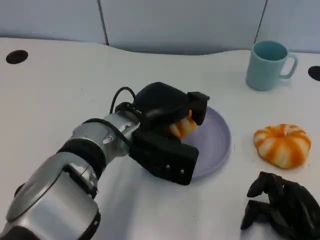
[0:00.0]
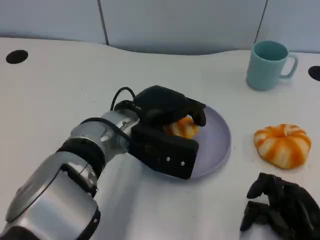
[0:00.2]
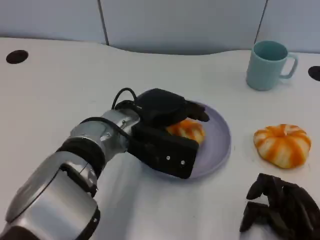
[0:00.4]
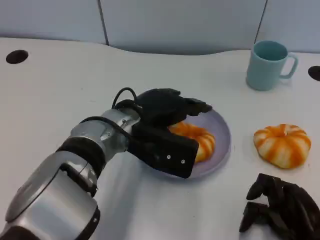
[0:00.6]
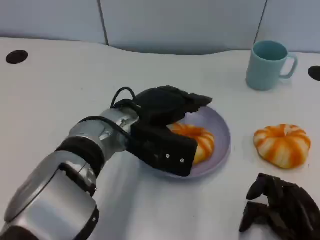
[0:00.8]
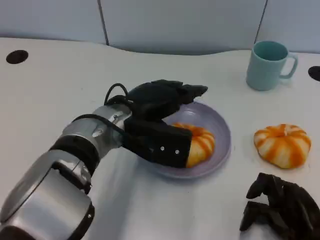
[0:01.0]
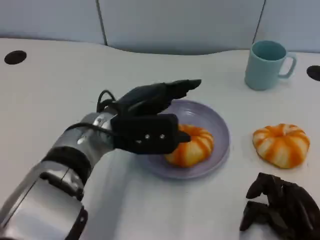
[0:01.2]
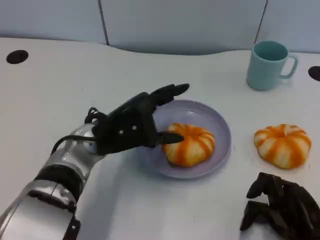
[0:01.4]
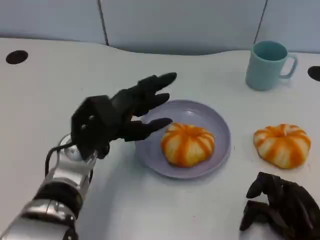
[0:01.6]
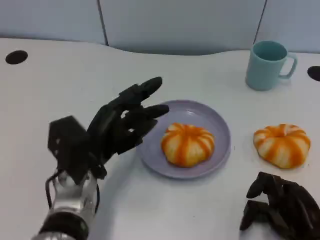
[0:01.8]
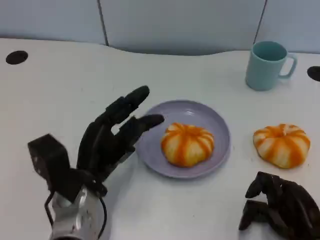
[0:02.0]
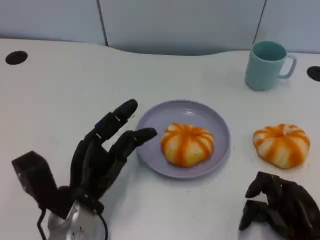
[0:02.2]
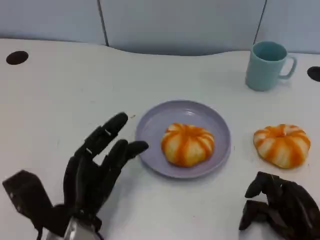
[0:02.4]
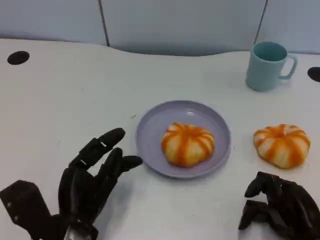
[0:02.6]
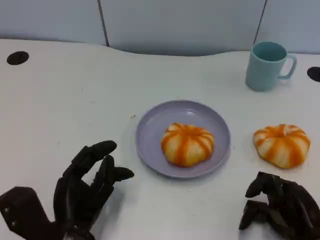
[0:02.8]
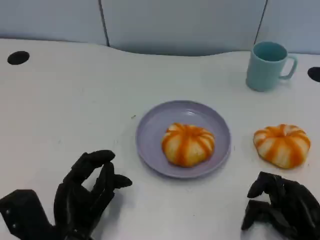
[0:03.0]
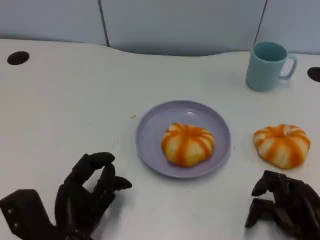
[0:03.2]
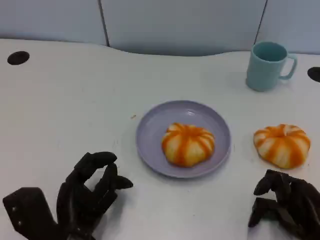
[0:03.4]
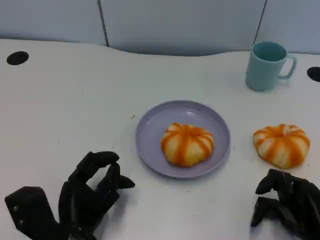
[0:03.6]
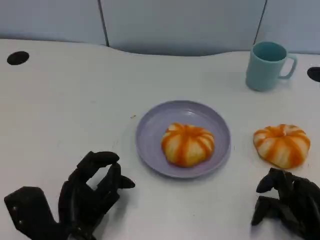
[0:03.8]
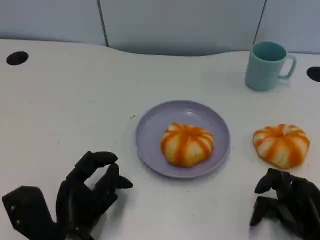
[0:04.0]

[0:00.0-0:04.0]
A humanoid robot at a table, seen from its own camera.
Task of the whole recording: Grasp the bread from the table and place it into the plate.
0:00.0 to 0:01.4: The left hand is displaced to the left by approximately 5 cm.
0:01.4 to 0:02.6: The left hand travels backward and downward by about 15 cm.
0:02.6 to 0:04.0: The hands move only a little.

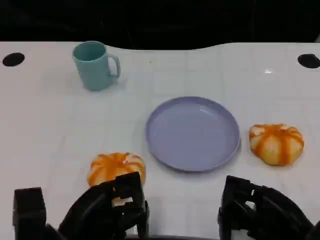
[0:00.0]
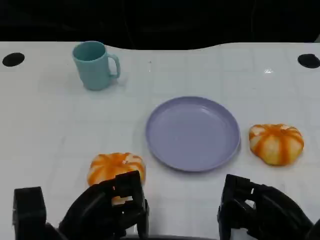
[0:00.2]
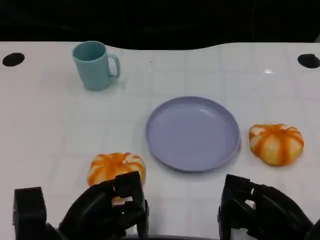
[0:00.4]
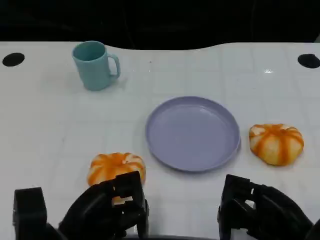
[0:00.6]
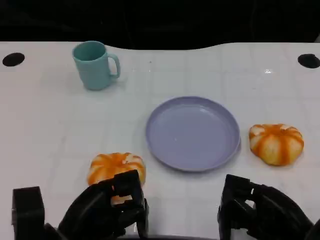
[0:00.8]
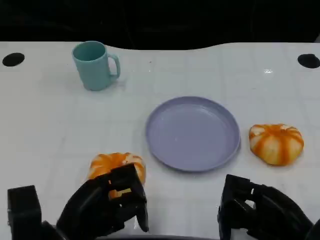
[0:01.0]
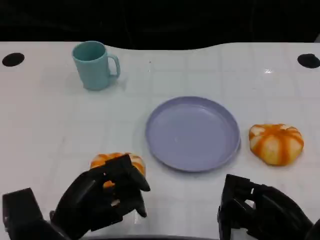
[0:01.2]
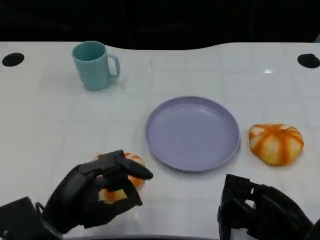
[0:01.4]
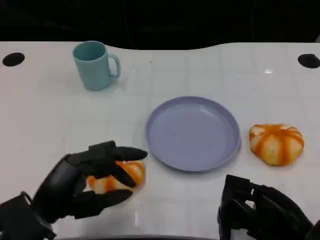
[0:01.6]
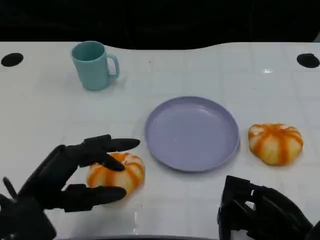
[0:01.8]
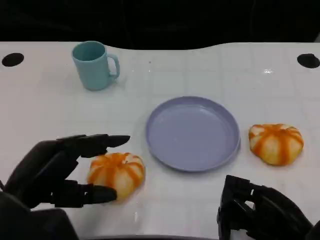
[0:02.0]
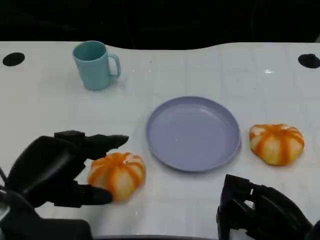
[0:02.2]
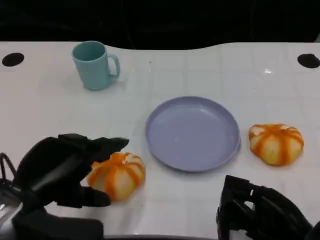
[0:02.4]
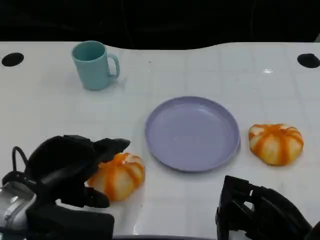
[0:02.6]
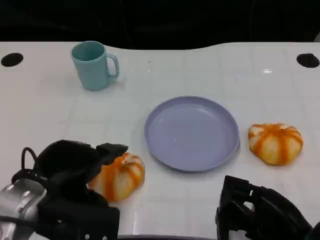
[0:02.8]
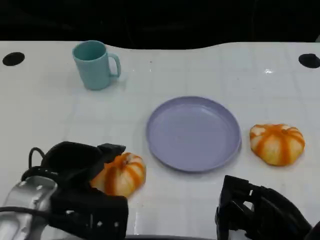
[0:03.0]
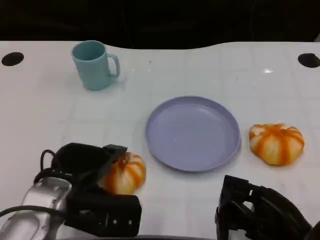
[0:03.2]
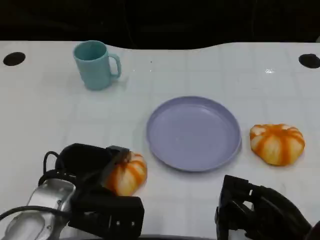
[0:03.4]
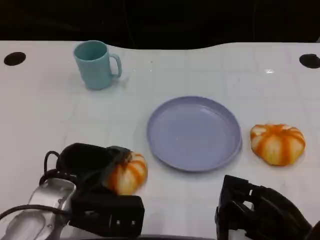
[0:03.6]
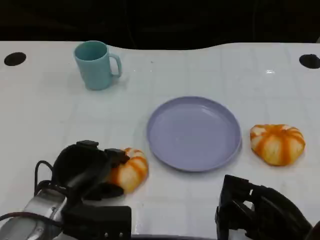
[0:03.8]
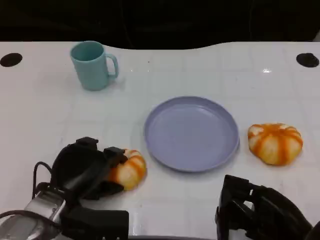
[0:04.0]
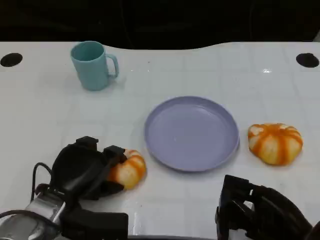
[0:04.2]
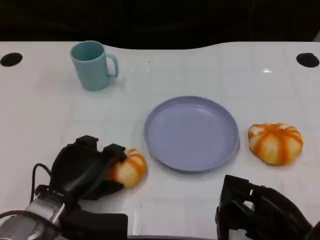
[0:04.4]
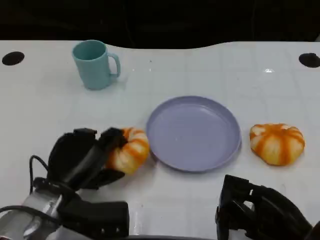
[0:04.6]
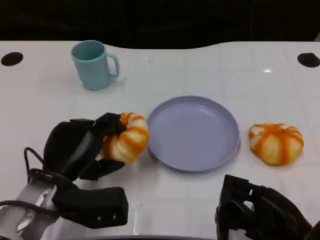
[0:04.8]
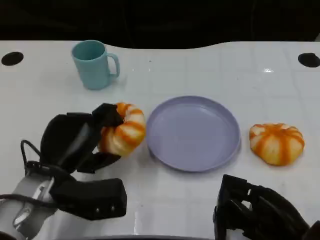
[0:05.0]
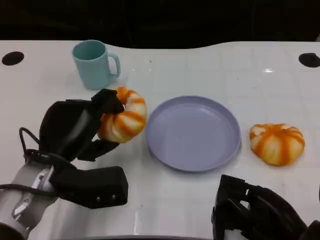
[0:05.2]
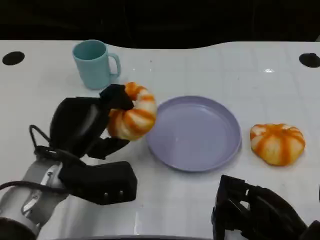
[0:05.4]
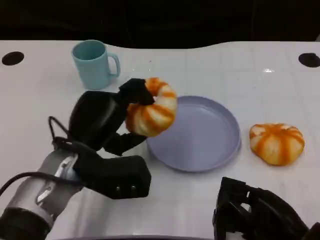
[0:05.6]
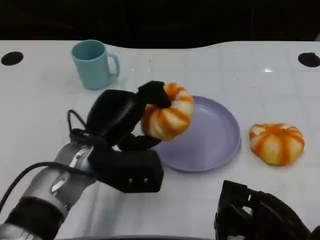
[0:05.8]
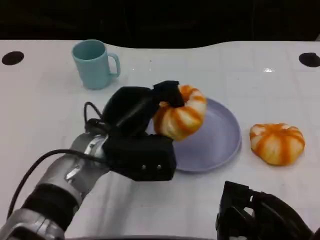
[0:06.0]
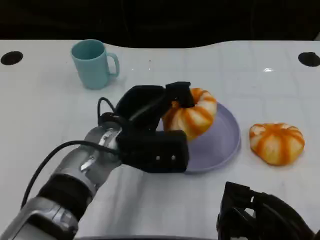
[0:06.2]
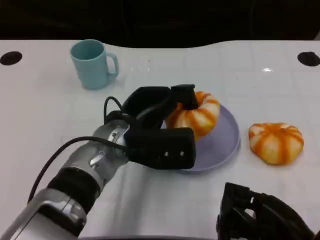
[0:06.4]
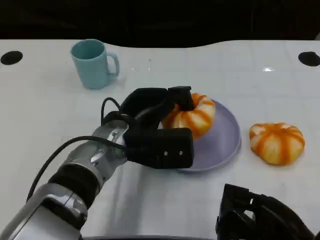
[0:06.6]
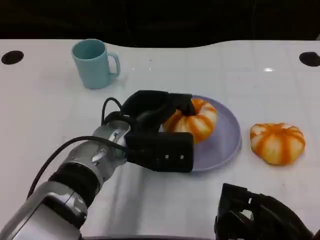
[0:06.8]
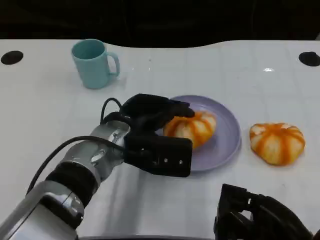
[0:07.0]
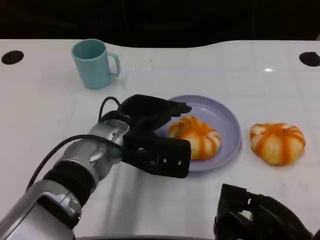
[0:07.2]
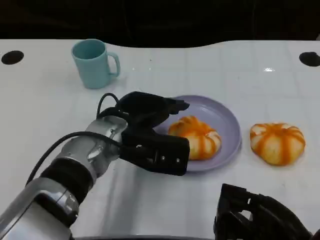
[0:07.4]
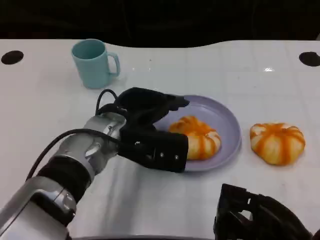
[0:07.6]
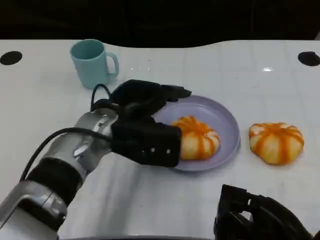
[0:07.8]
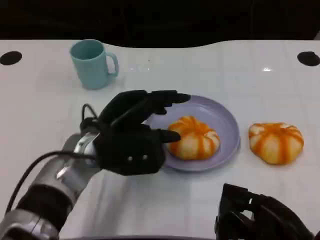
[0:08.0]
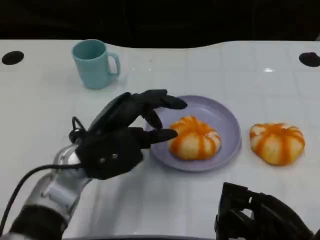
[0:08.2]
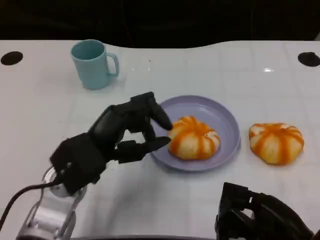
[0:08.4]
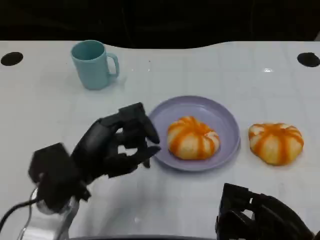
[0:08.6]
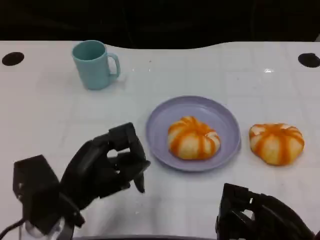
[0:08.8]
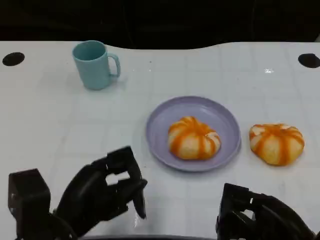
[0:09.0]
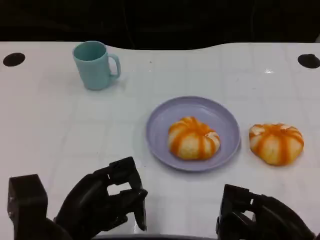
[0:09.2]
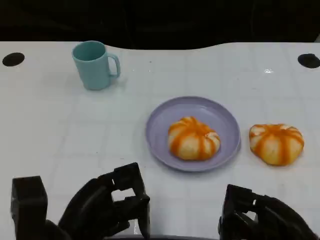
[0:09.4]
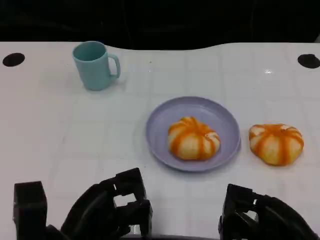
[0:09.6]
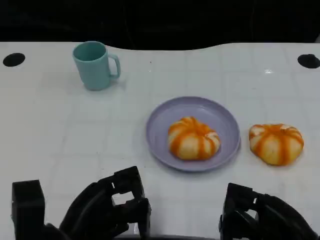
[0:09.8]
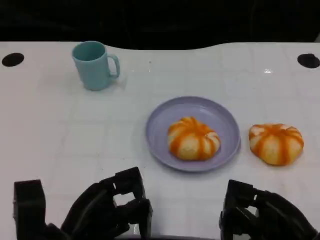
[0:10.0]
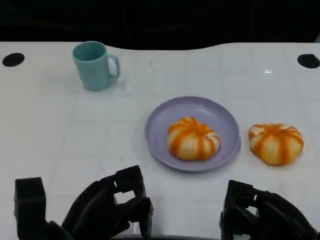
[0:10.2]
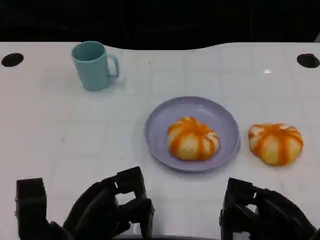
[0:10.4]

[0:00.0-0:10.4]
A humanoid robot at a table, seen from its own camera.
Task of the whole recording: Grasp the bread from the table and place it into the plate.
0:01.4 to 0:03.0: The left hand shifts by about 5 cm.
0:03.0 to 0:04.4: The left hand shifts some 5 cm downward.
0:04.4 to 0:06.0: The left hand heads upward, to the right and forward, covering about 15 cm.
0:07.4 to 0:09.0: The left hand is displaced backward and to the left by some 15 cm.
0:09.0 to 0:10.4: The hands move only a little.

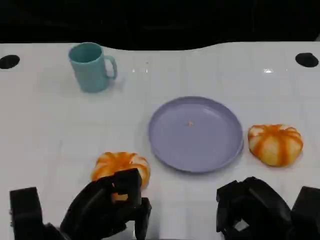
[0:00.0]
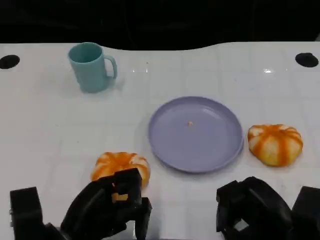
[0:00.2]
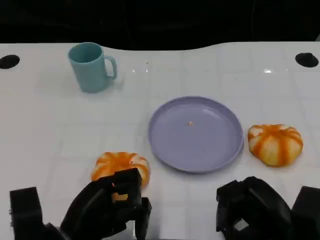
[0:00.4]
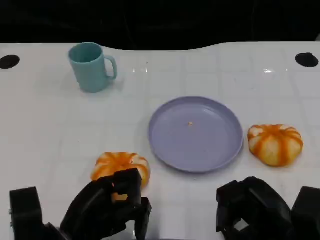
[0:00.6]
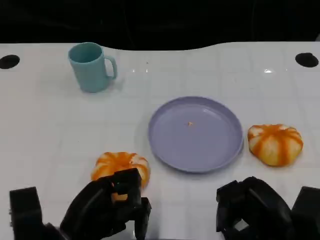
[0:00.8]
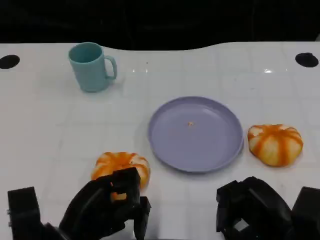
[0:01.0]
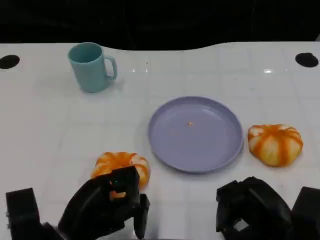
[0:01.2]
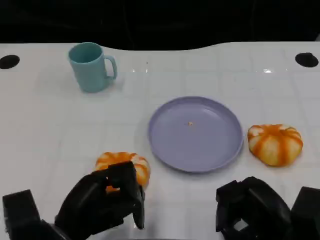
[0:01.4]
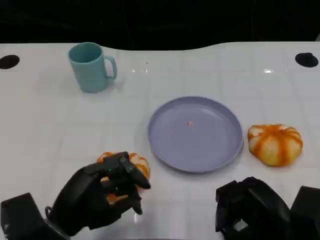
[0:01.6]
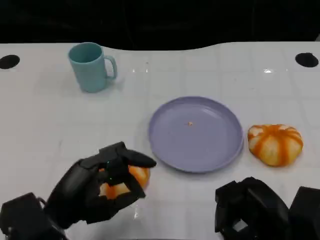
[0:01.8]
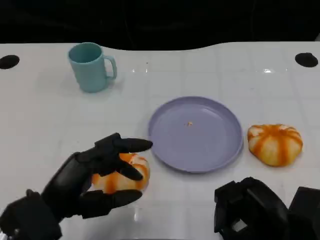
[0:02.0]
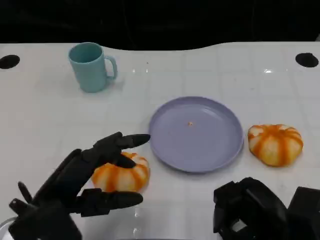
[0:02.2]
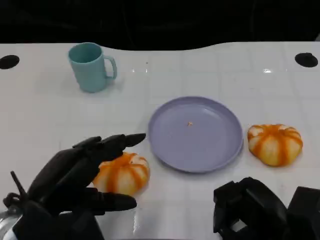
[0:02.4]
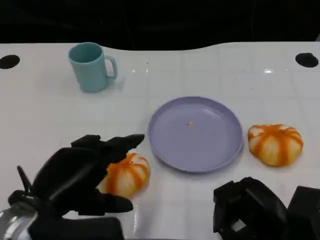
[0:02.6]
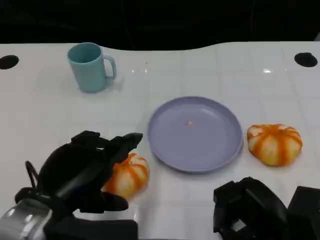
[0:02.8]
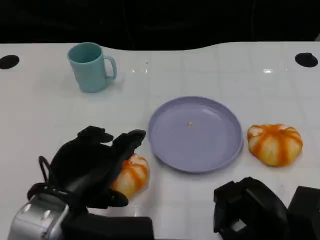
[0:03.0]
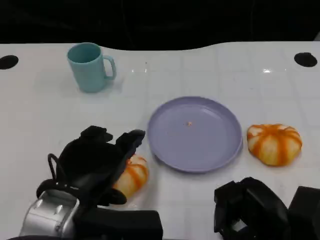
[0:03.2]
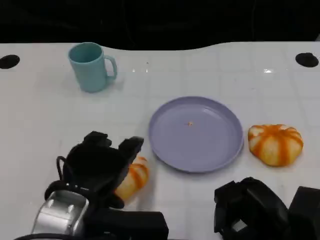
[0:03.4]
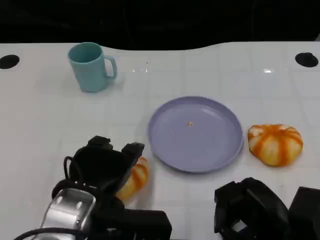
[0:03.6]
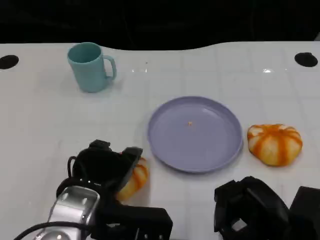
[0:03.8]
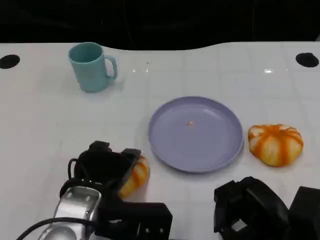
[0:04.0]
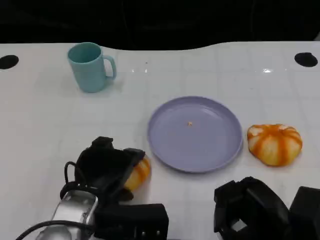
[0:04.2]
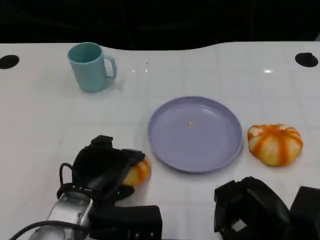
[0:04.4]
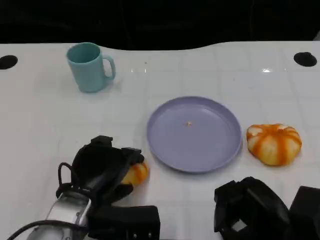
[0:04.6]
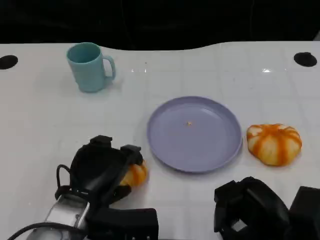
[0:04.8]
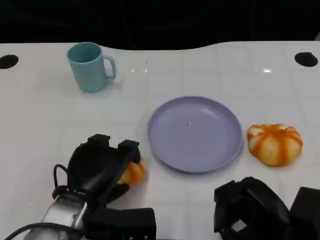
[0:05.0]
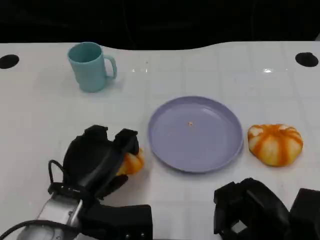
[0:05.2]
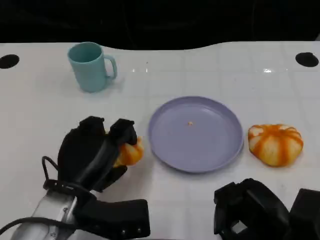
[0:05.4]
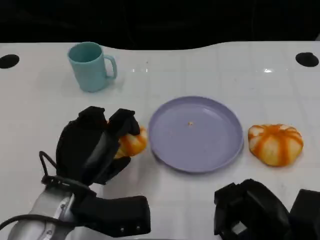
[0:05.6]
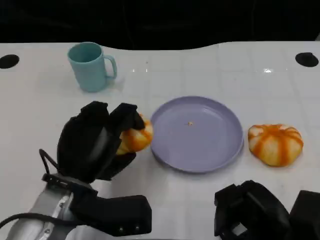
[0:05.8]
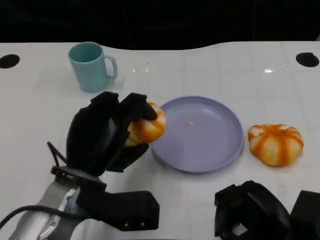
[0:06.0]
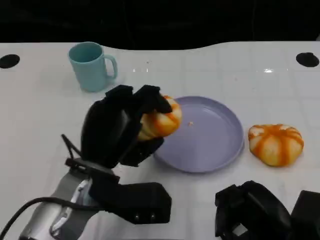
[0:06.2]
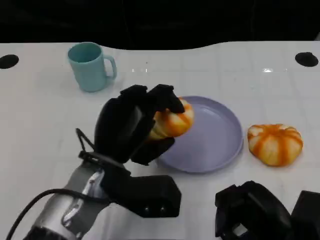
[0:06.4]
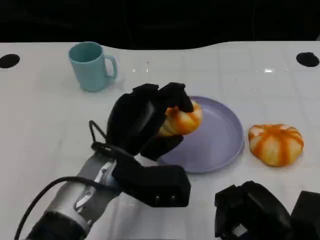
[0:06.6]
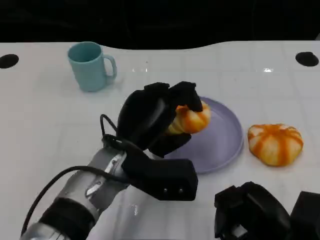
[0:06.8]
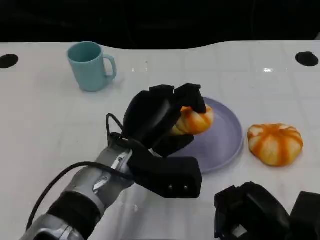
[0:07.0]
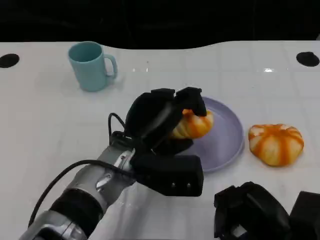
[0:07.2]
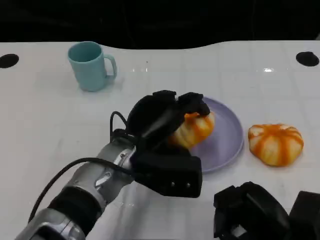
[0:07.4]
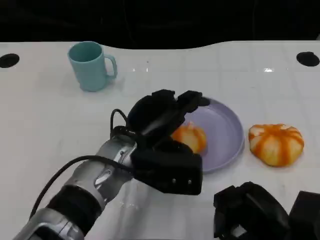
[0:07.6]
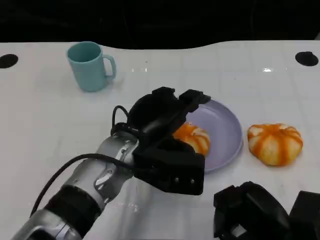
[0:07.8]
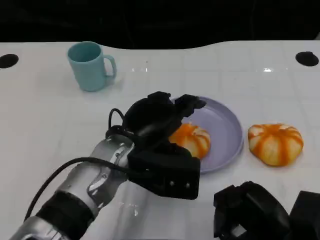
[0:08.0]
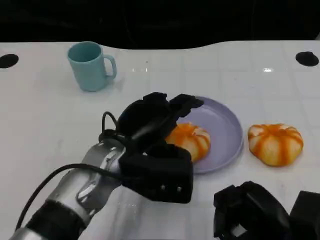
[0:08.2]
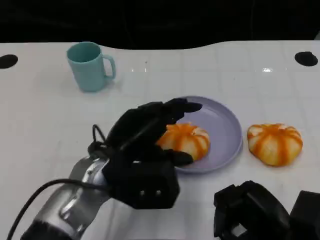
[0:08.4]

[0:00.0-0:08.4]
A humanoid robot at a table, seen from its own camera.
Task of the whole recording: Grasp the bread from the table and place it into the plate.
0:00.0 to 0:01.4: The hands make only small movements.
0:01.4 to 0:02.8: The left hand moves upward, approximately 10 cm.
0:02.8 to 0:04.2: The left hand heads downward, covering approximately 5 cm.
0:05.6 to 0:07.0: The left hand shifts approximately 10 cm to the right.
0:07.0 to 0:08.4: The left hand changes place by approximately 5 cm.
